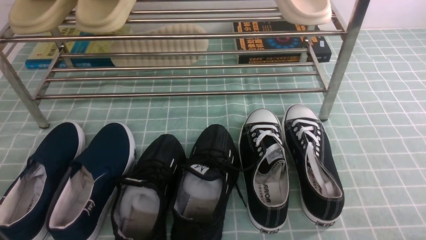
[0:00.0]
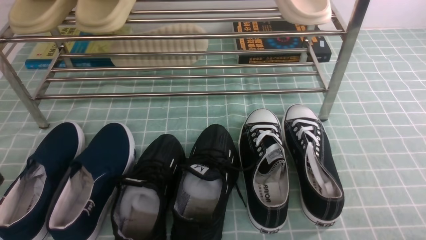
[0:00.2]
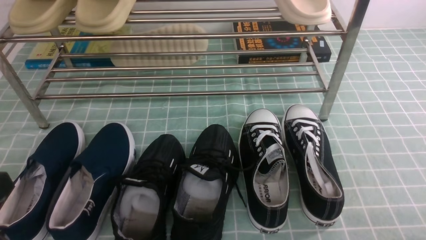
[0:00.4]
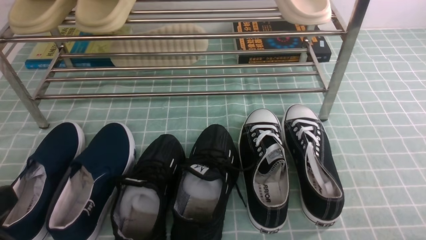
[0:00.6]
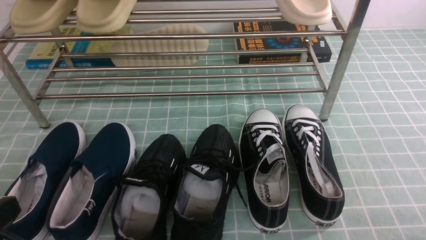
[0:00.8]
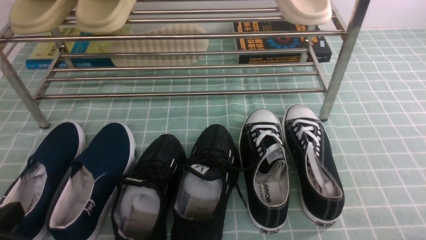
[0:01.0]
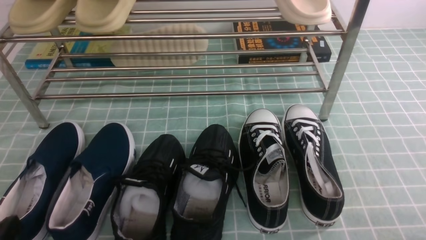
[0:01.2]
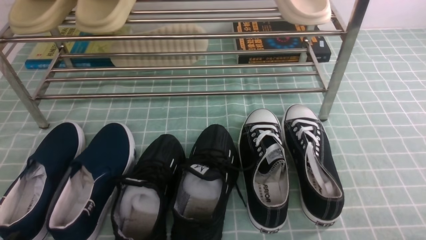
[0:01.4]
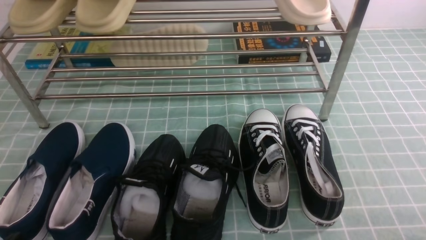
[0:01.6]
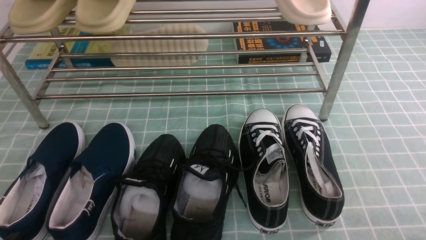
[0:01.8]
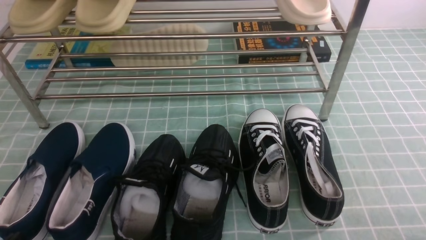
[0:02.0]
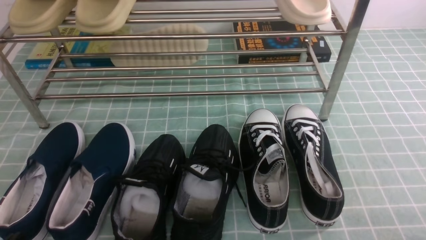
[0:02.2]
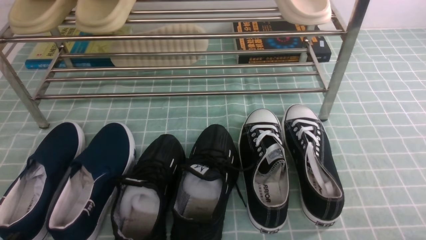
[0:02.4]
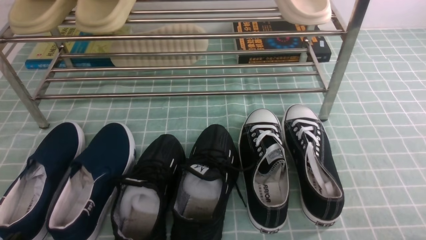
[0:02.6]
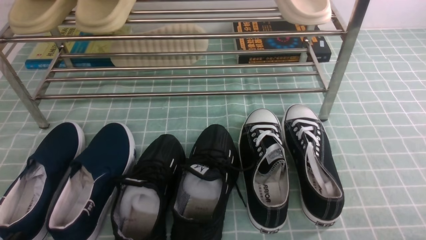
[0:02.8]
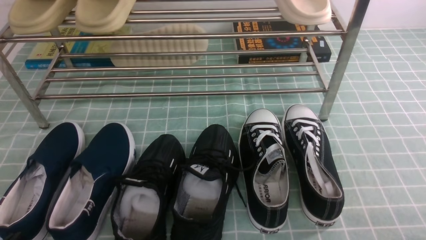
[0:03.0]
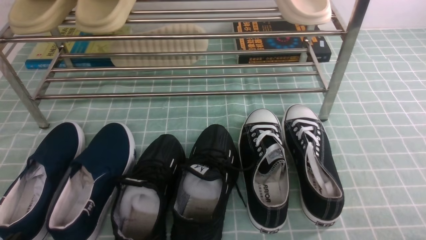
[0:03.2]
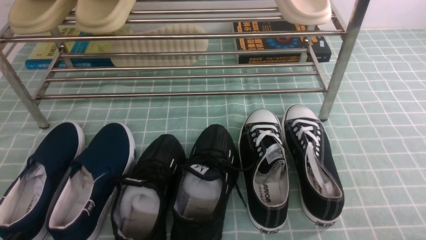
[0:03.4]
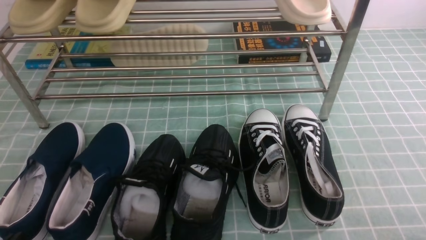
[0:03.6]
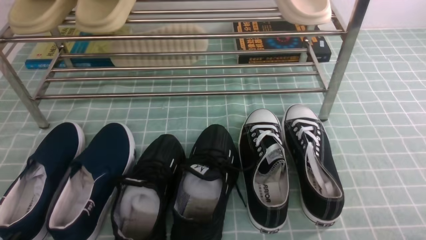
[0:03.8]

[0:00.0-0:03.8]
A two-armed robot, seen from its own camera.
0:00.0 to 0:01.2: The left gripper heads downward, covering roughly 15 cm.
0:02.6 to 0:03.8: The two grippers keep their place.
